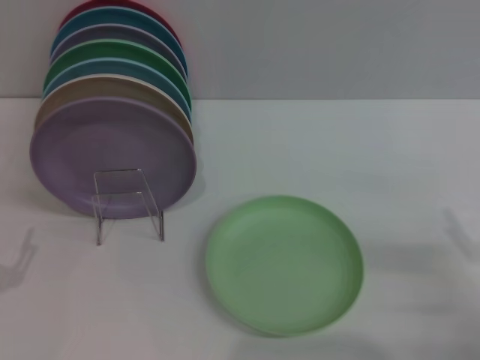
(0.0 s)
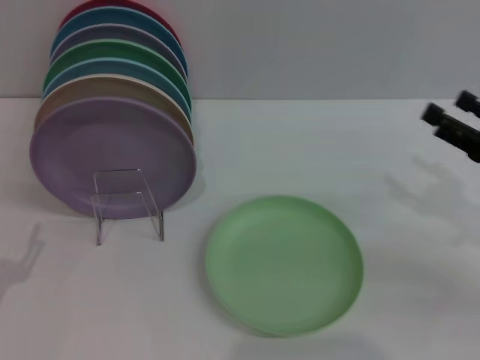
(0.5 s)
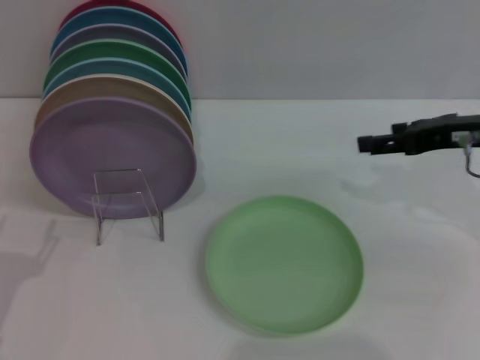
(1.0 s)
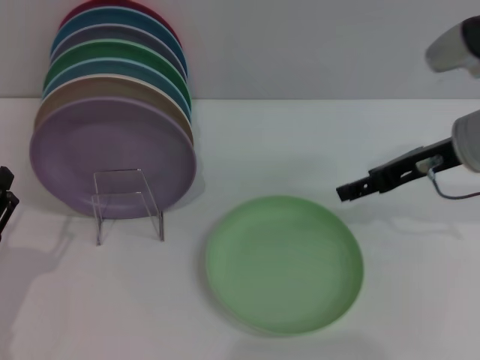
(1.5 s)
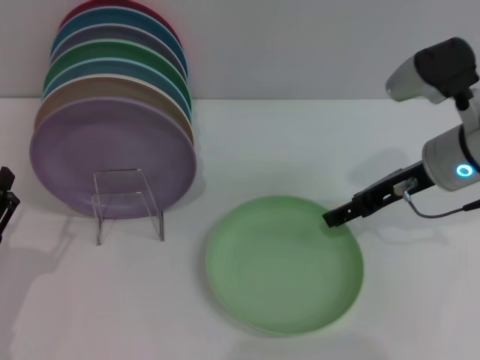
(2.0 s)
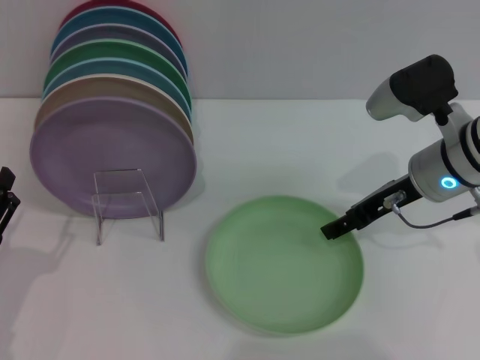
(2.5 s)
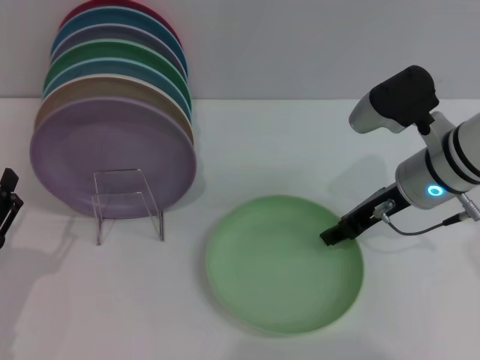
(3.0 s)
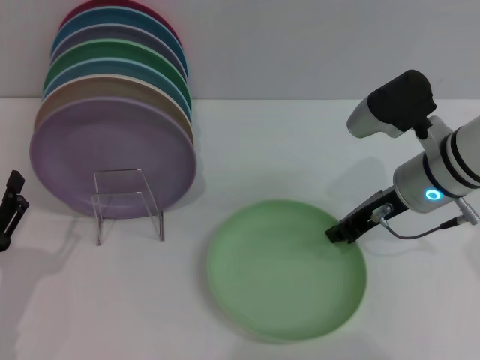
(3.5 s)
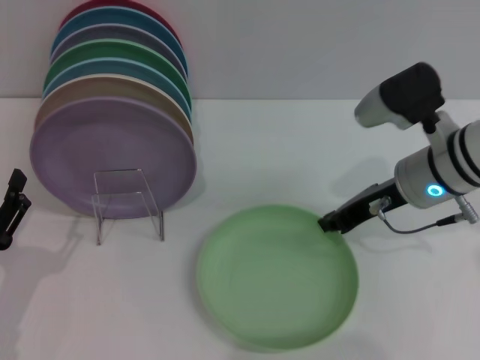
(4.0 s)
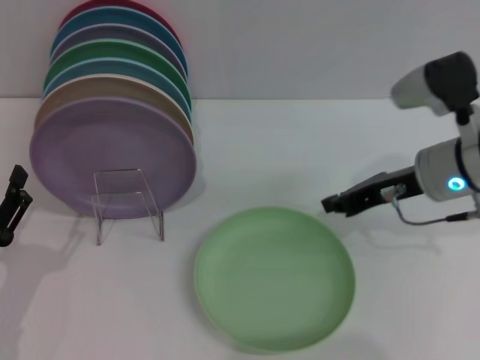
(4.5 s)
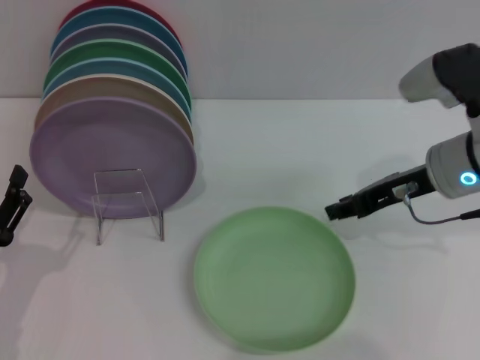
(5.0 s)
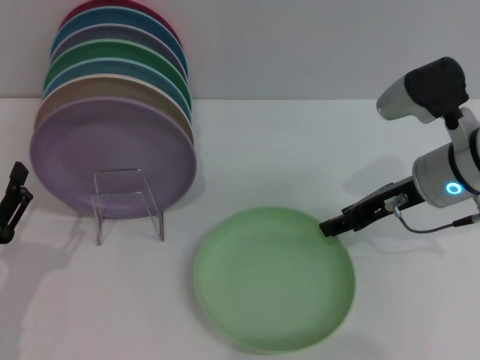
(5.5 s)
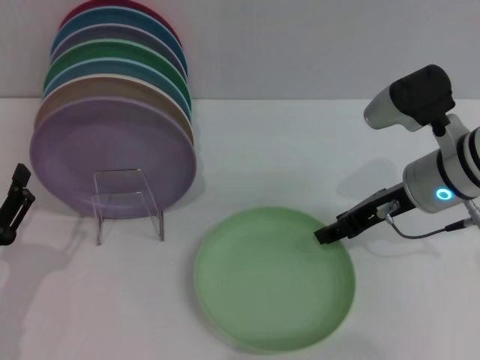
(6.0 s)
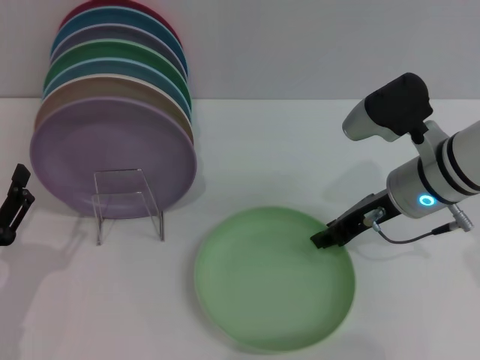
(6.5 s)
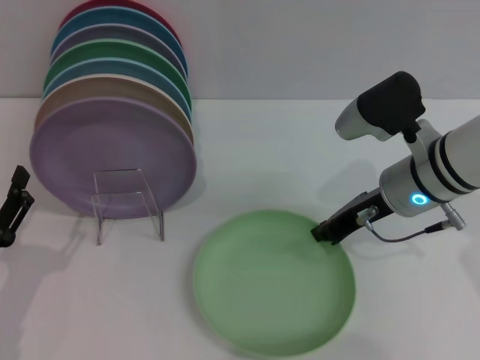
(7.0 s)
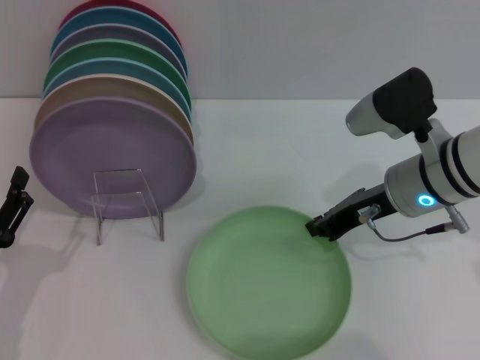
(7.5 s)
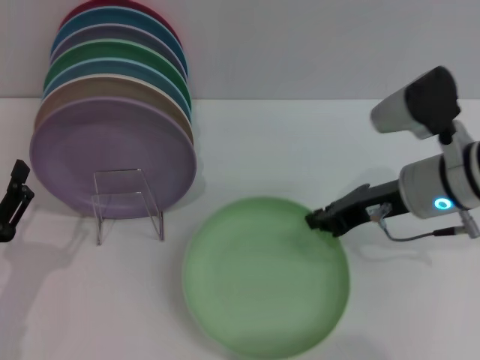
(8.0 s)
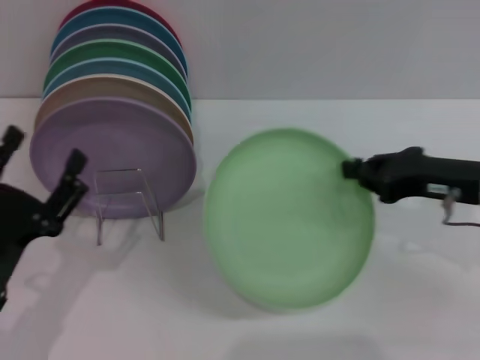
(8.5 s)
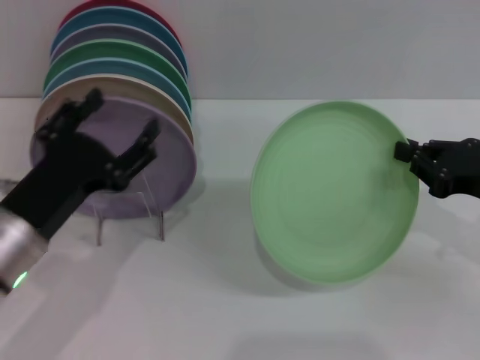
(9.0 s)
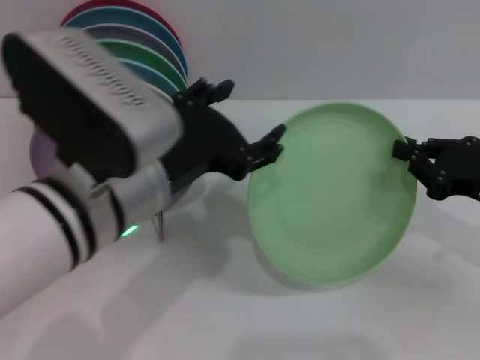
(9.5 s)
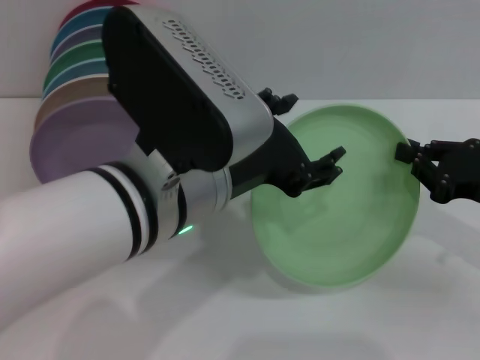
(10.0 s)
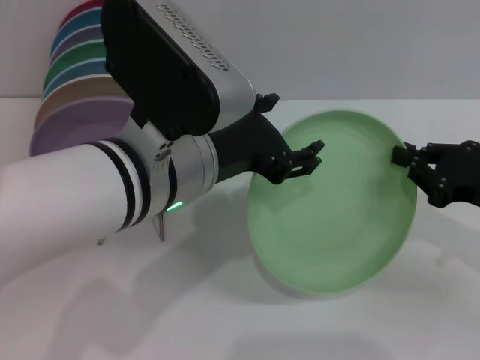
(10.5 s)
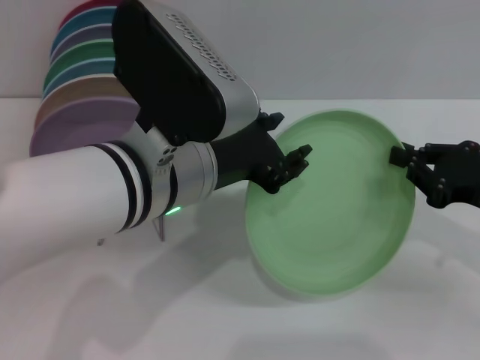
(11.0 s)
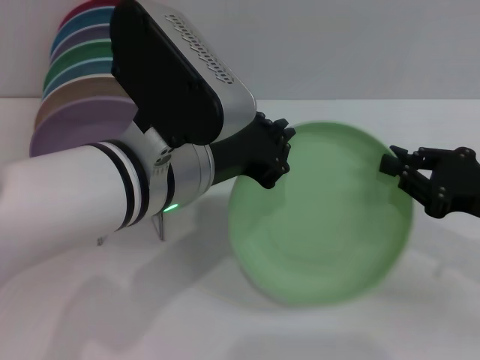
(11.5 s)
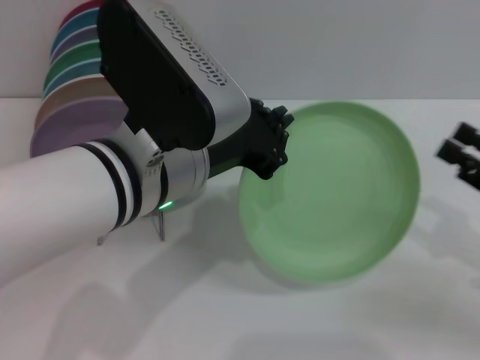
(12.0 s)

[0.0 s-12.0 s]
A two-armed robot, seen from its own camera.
Task of the whole recording: Grip the plate with one hand, pass it to the other, then set it on the shelf.
Step, 0.0 to 8.0 s: Pick up the plate with the right gripper.
Step, 8.5 to 11.5 s: Pass the plate from the right gripper to the left gripper.
0.0 to 2.0 s: The right gripper heads forward, to the left and upward, covering approximately 25 cm.
2.0 to 4.0 s: The right gripper closes up.
4.0 to 6.0 s: The right gripper opens its fingers.
6.0 to 8.0 s: The right gripper closes.
8.0 to 10.0 s: The right gripper shifts about 15 cm to the right and backward; the left gripper goes about 30 cm to the right and upward.
10.0 to 12.0 s: The right gripper changes place by about 5 cm, while the left gripper closes its fingers.

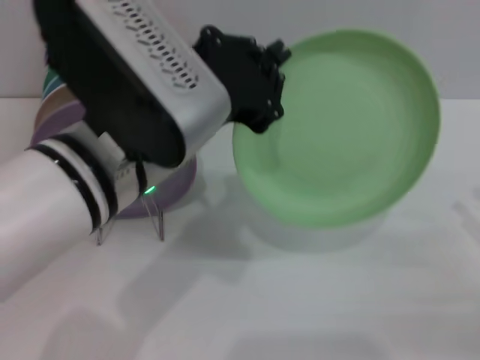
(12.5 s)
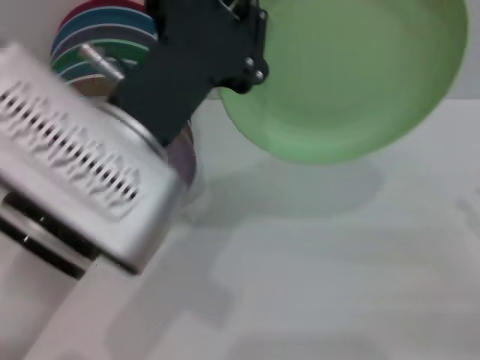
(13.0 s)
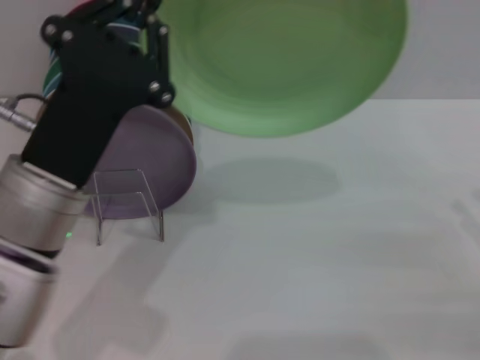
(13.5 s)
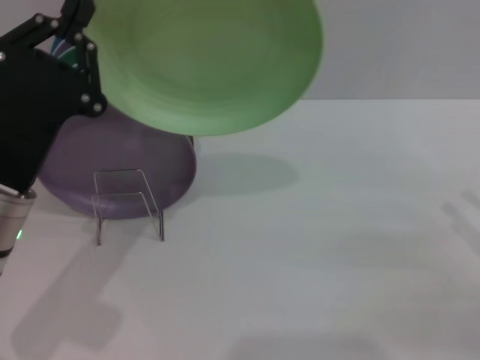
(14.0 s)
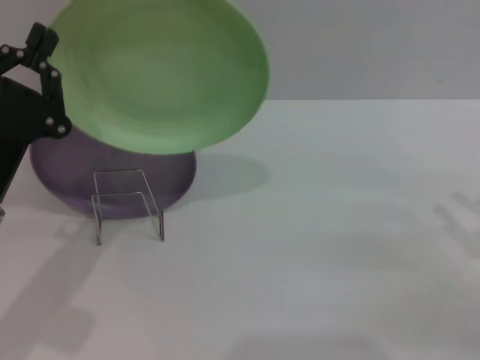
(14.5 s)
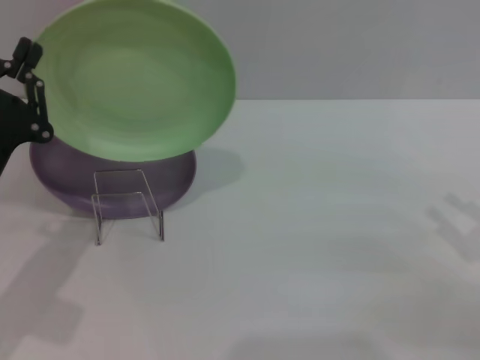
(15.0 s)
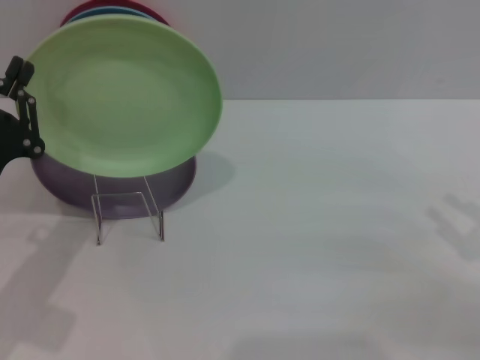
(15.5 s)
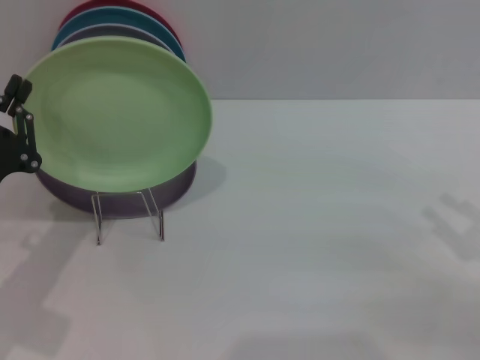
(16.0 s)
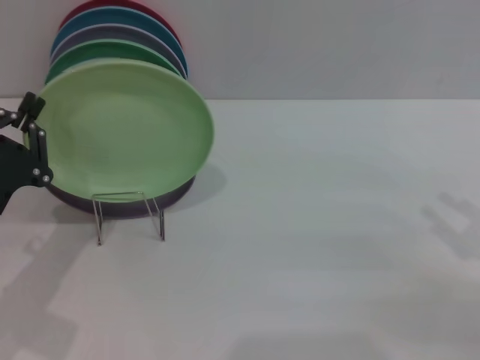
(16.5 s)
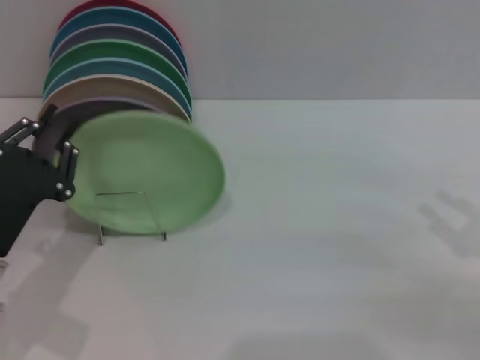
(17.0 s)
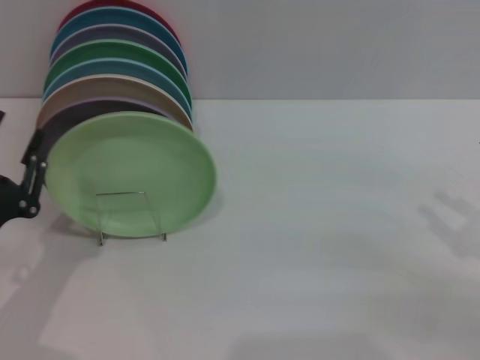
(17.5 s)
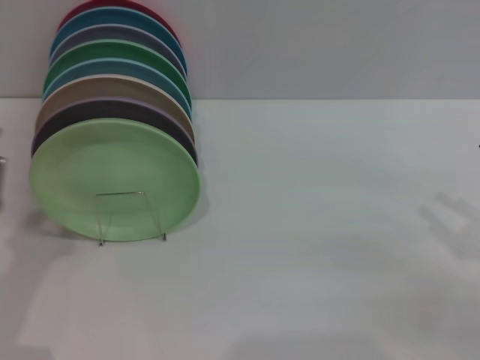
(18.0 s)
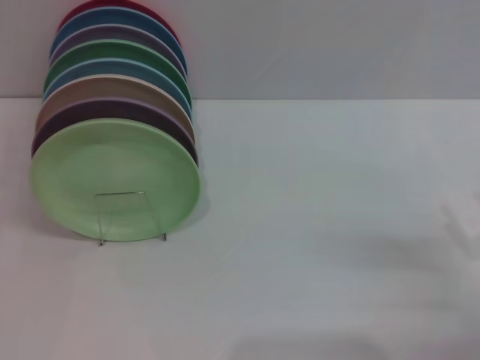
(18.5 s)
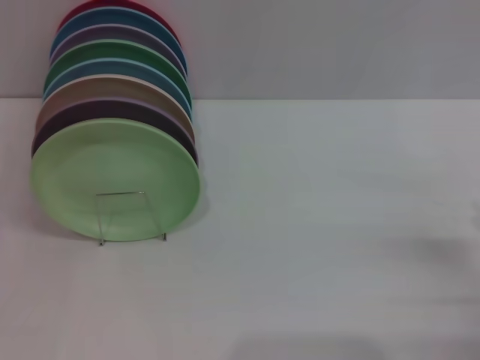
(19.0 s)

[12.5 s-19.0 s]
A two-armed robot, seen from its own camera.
Task of the whole recording: Grip the plate with one hand, pass it to the other, then set it on the shelf.
Step, 12.5 to 17.5 s: Place the plate on the shelf with the left gripper.
12.5 to 14.5 s: The left gripper goes approximately 20 cm to the left and downward.
14.5 to 17.0 s: The left gripper ends up about 5 cm from where it was.
17.0 to 19.0 s: The left gripper heads to the left and backward, covering roughly 10 cm, and opens up, while the right gripper moves downward, roughly 5 cm.
